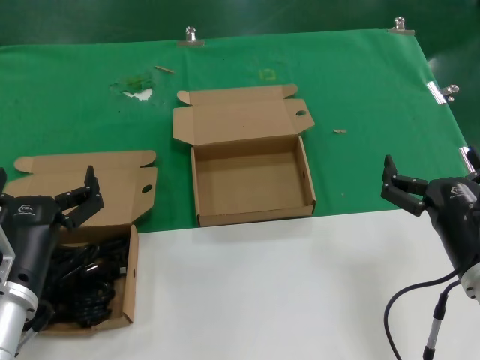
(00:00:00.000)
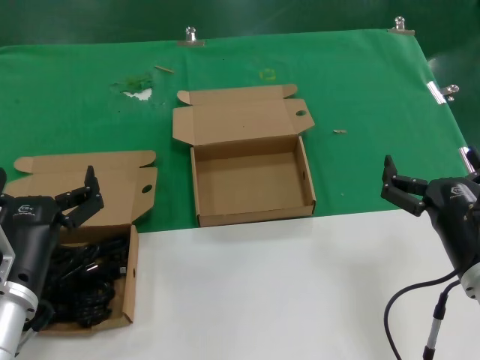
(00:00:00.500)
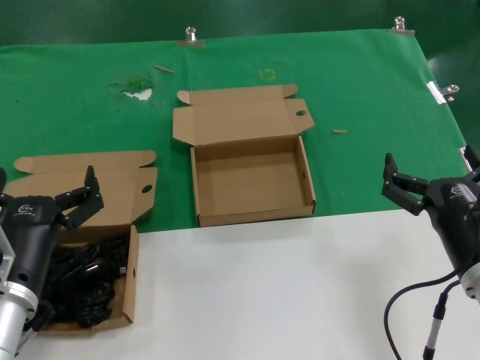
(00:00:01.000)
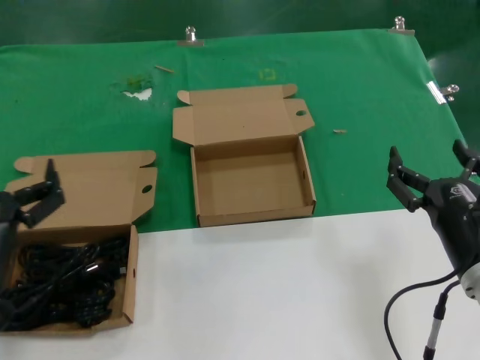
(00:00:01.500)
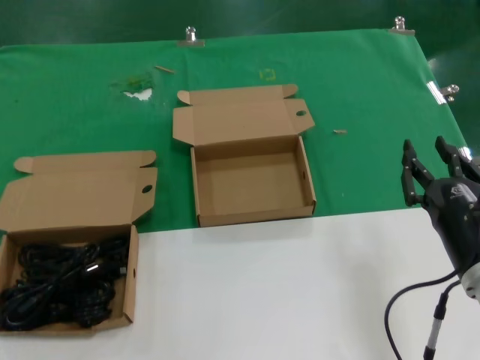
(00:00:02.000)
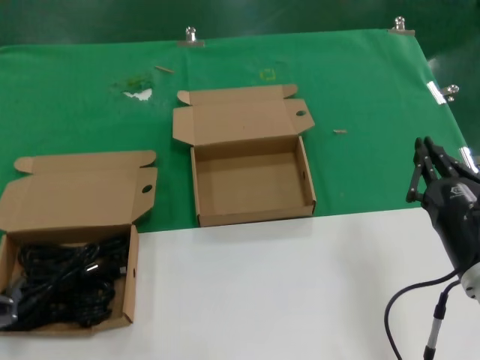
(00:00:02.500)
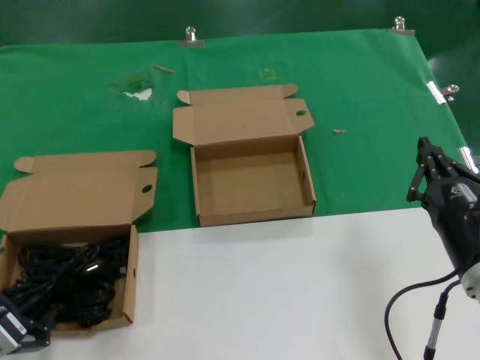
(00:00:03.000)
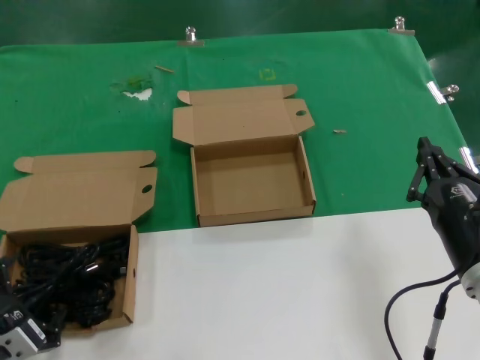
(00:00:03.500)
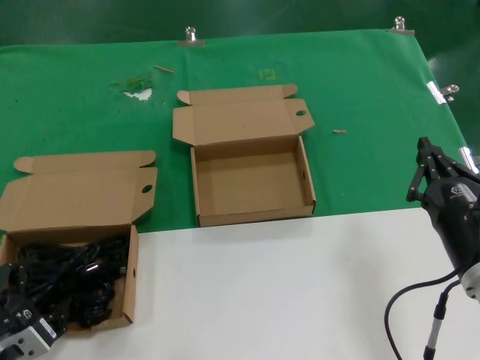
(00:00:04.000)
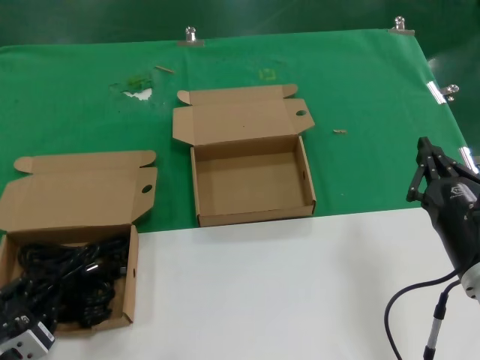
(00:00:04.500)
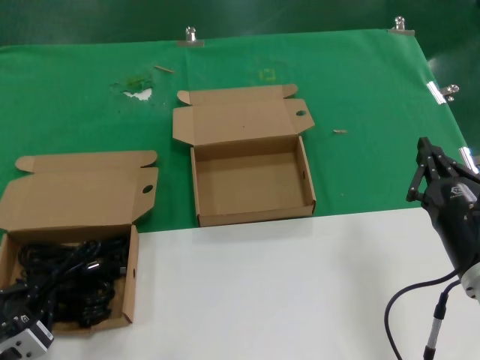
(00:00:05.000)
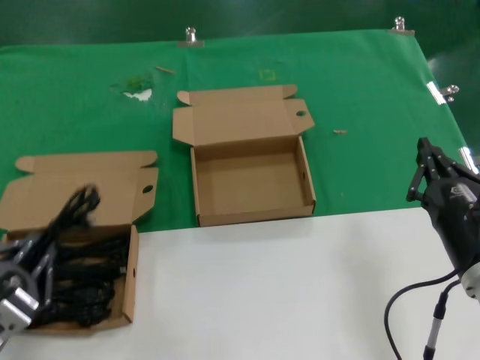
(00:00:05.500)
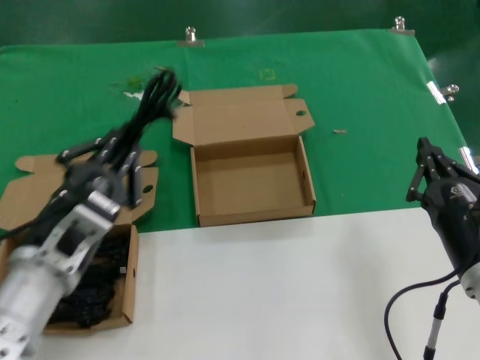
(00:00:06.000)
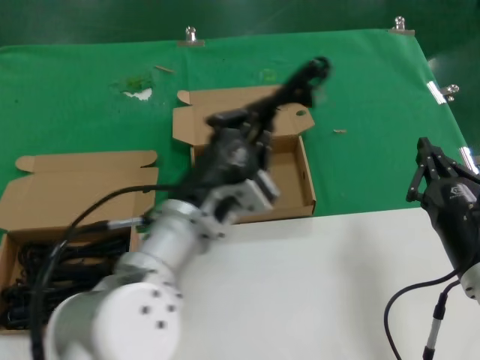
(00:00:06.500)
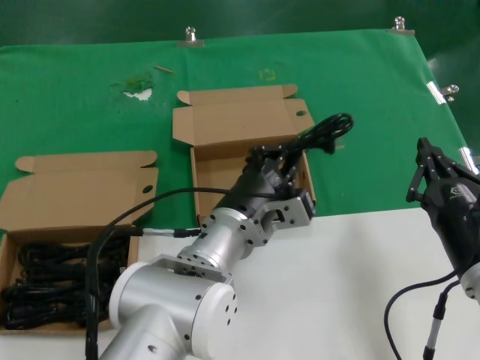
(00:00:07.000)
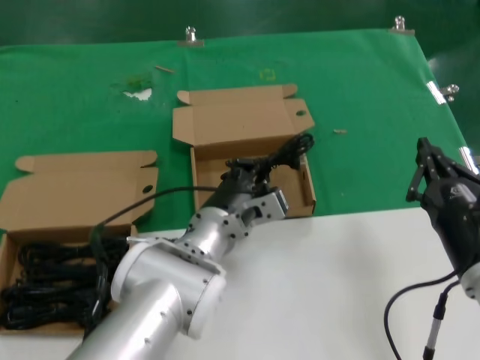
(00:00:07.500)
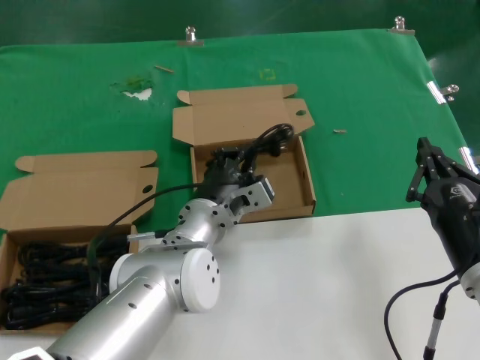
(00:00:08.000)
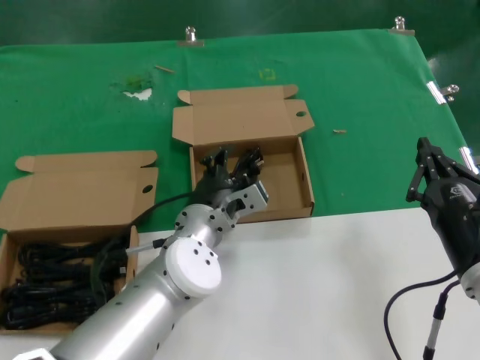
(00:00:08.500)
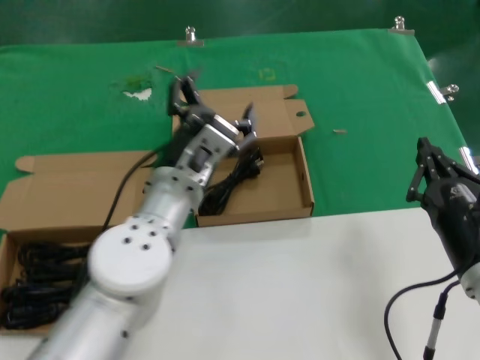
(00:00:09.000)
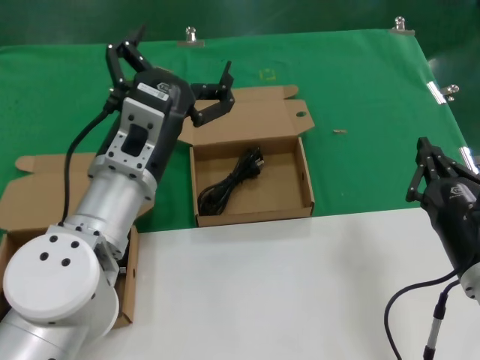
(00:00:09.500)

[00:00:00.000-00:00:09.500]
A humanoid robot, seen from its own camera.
Task of the whole recording: Pick up the power cord from the box containing it and place it in another box.
Step, 00:00:00.000 to 00:00:04.500: Grasp the data cable.
Step, 00:00:05.500 to 00:00:08.500: Place the data cable in the another box.
00:00:00.000 to 00:00:02.000: The left hand travels to the left and backward by approximately 10 cm.
00:00:02.000 to 00:00:04.000: The left hand heads downward, covering about 10 cm.
00:00:04.000 to 00:00:05.500: The hands move only a little.
00:00:05.500 to 00:00:07.500: The left hand is displaced to the right and forward by roughly 35 cm.
00:00:07.500 to 00:00:09.500: The left hand heads upward, to the left and backward, covering some 15 cm.

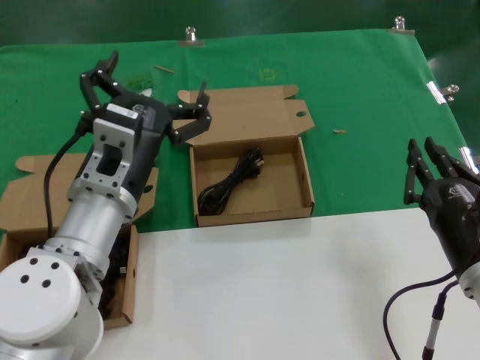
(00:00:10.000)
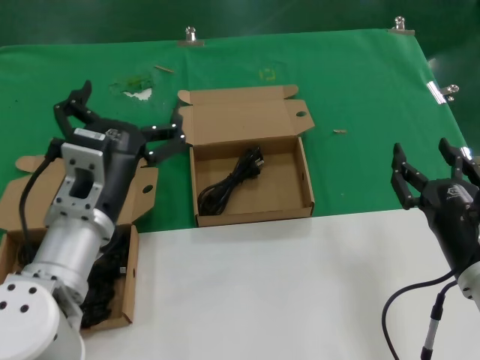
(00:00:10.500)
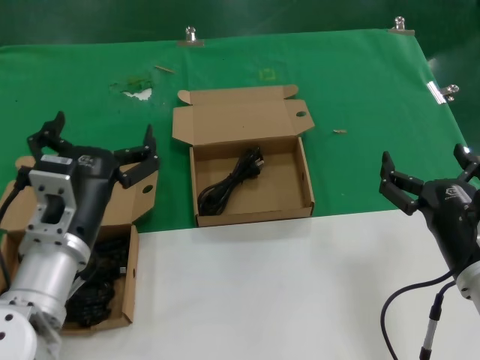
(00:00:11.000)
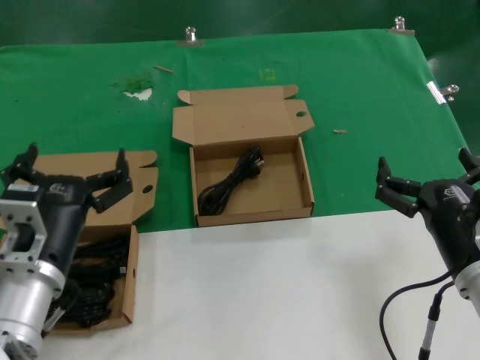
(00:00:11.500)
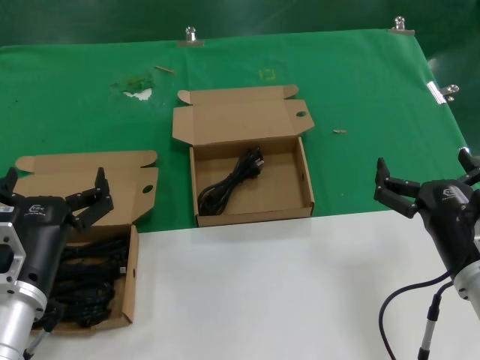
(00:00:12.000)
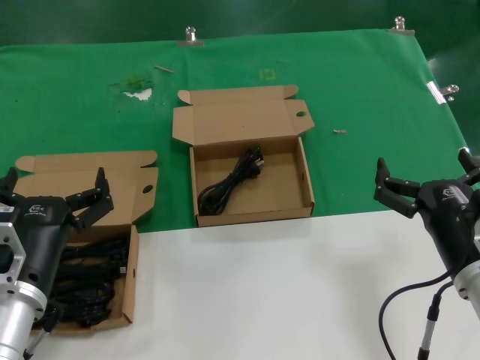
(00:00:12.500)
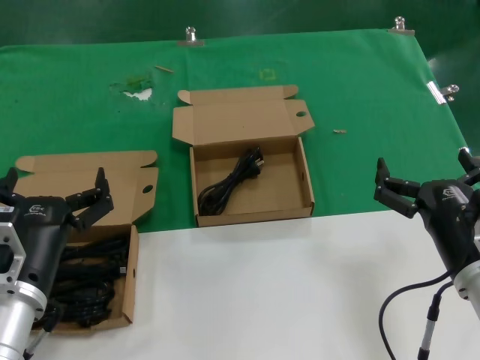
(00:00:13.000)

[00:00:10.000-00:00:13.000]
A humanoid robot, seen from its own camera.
Task of the whole recording: Pick up the power cord from the box containing it and place it in another box.
00:00:10.000 to 00:00:11.500: The left hand heads to the left, downward and backward, covering about 10 cm.
00:00:11.500 to 00:00:13.000: The hands make only small movements.
